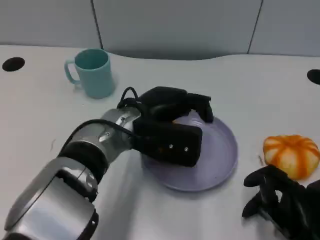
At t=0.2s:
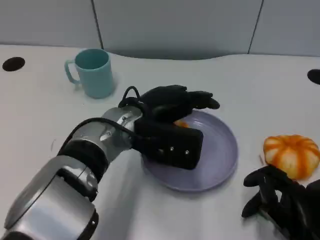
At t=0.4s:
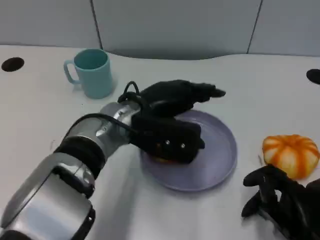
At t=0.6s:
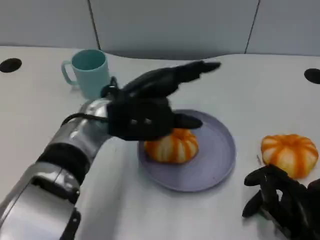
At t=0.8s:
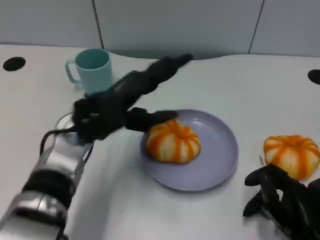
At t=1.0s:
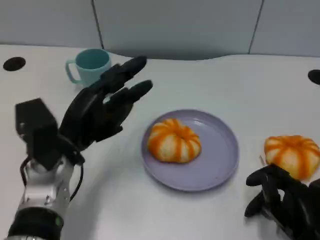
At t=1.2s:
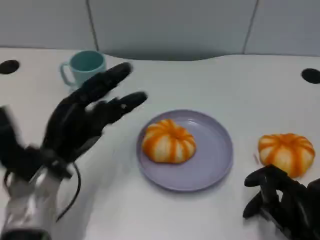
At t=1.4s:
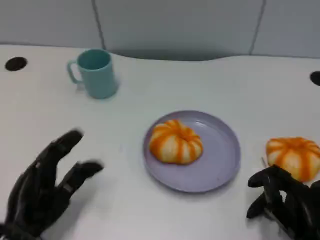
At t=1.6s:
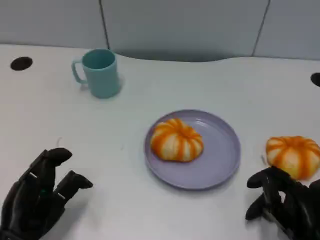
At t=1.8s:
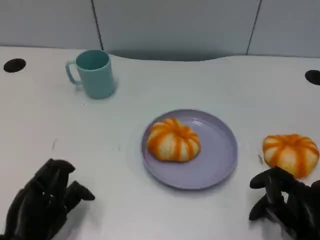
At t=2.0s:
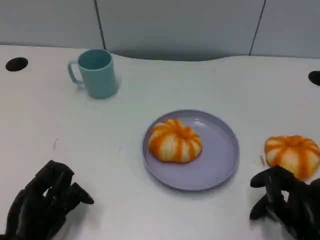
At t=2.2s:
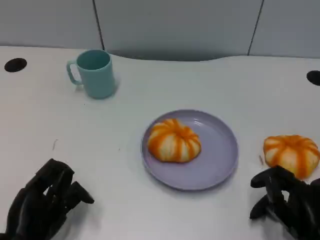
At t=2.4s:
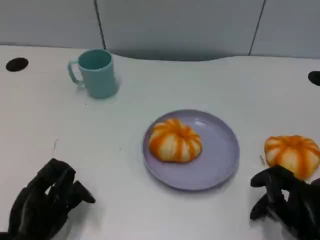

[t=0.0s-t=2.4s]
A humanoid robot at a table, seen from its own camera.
Task of the whole recording: Grasp the bread from the table and place it into the plate.
t=0.0s to t=1.2s: The left hand heads to the left, backward and downward, covering approximately 15 cm.
t=1.2s to t=2.4s: The left hand travels backward by roughly 5 cm.
